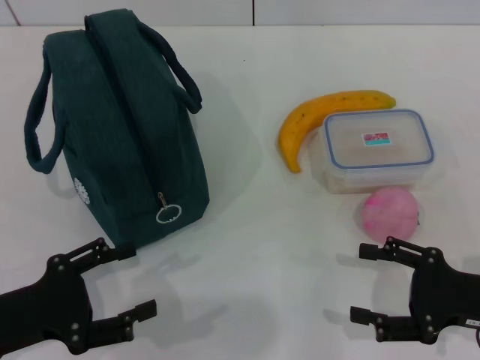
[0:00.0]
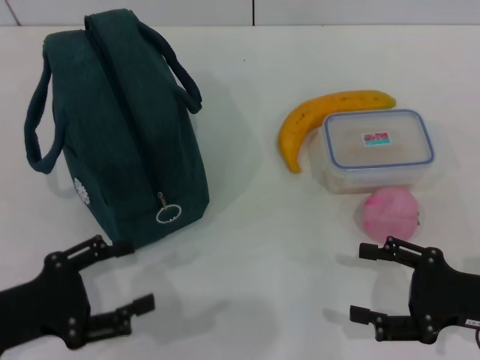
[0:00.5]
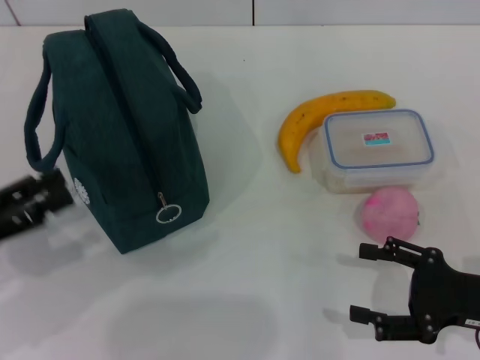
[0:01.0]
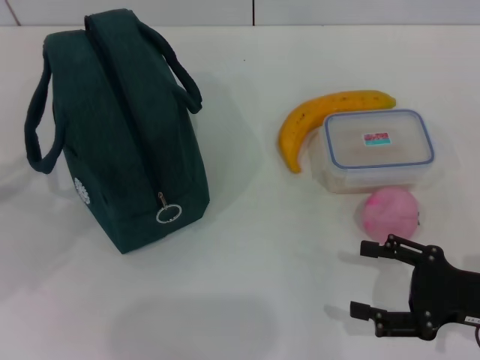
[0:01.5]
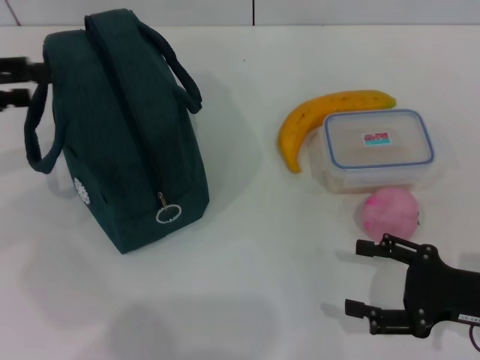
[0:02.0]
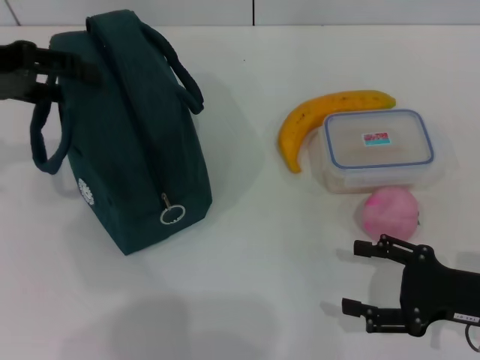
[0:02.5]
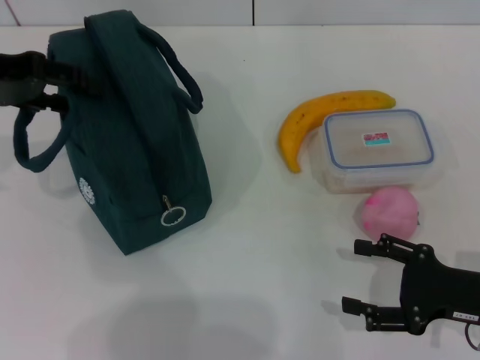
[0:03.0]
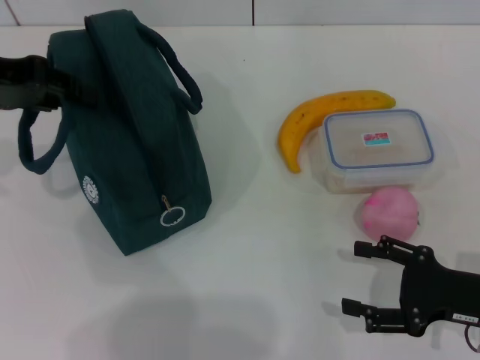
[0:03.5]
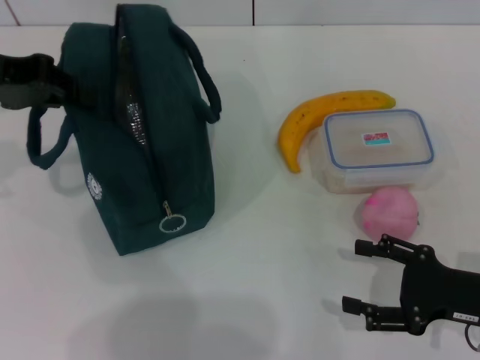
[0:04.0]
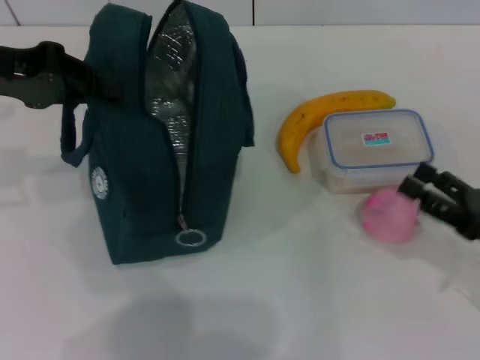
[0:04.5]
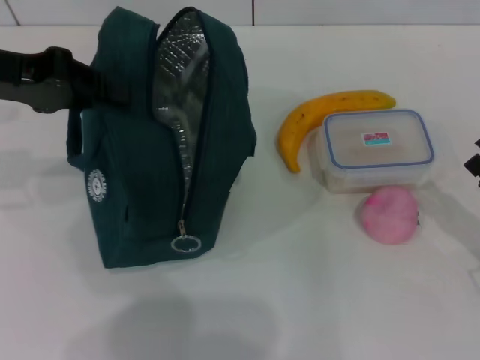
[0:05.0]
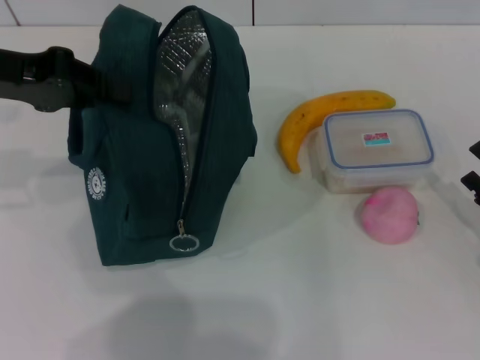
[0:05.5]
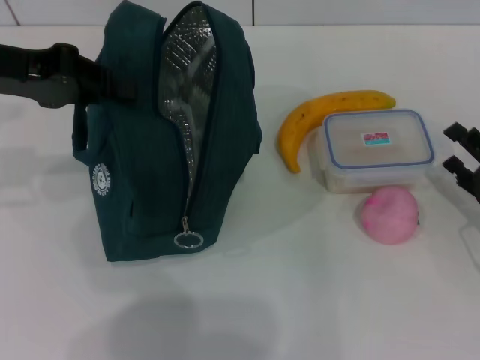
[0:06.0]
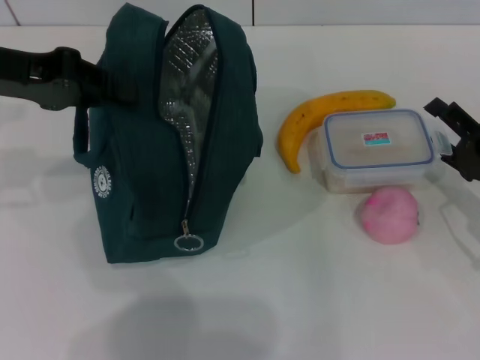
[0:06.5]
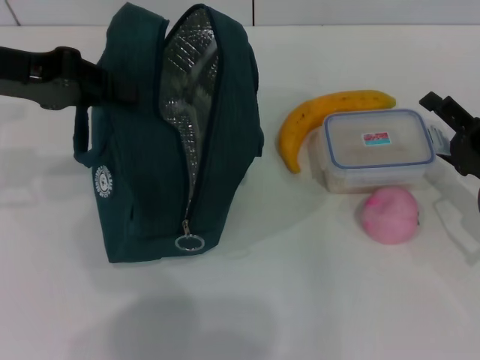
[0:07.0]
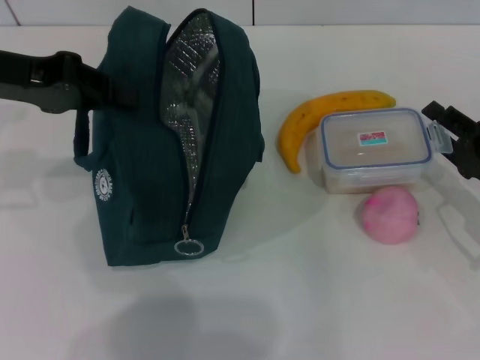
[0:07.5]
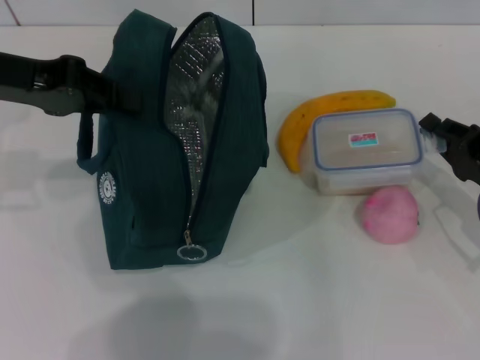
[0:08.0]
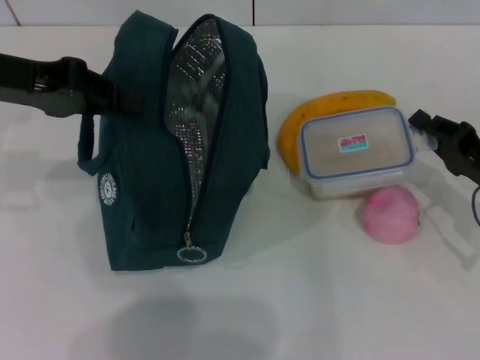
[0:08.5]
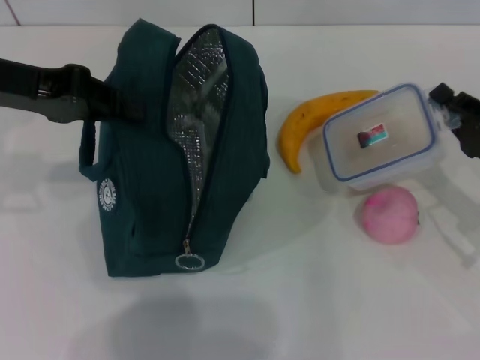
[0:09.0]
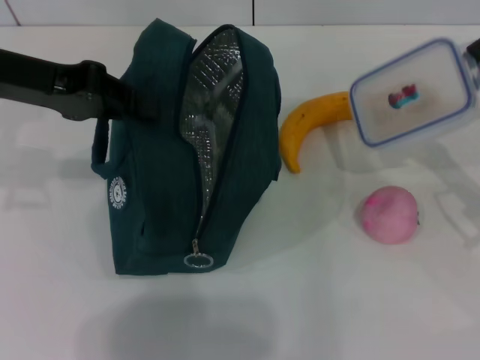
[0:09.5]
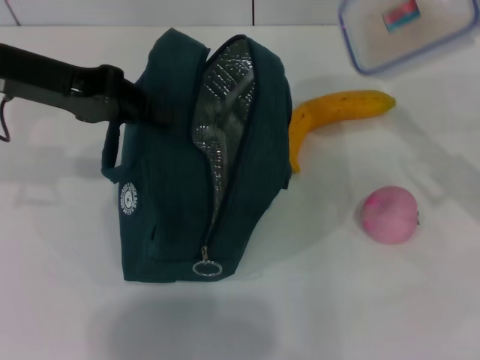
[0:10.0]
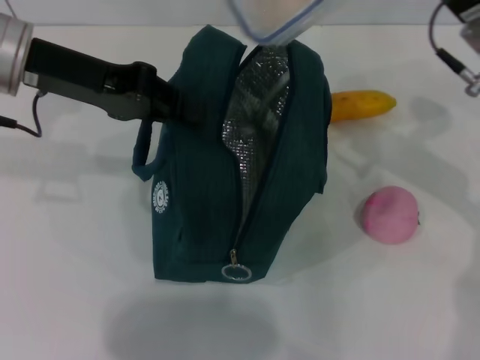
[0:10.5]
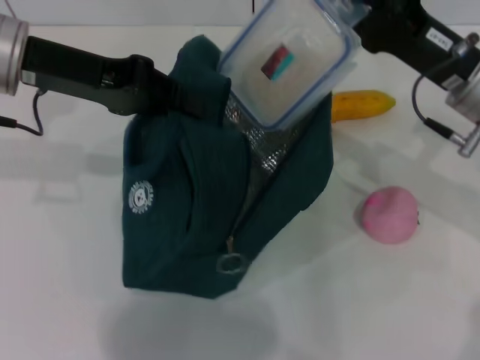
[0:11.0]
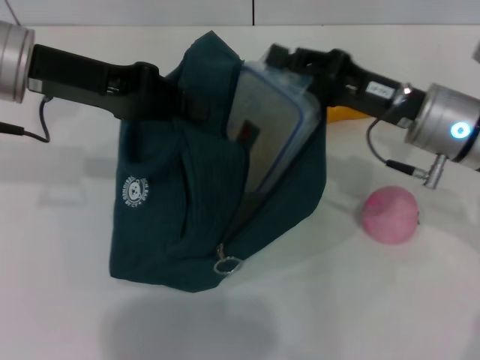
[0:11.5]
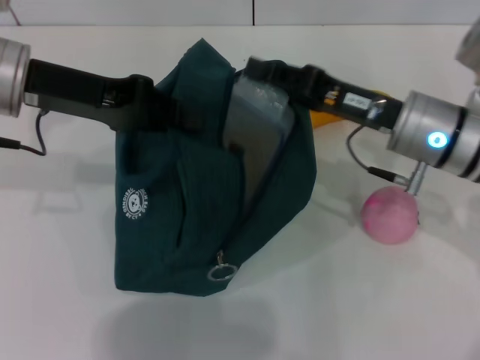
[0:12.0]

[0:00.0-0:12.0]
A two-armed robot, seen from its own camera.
Step, 0:00.0 to 0:03.5: Hold the lunch bag with your left hand.
Step, 0:04.0 to 0:08.0: Pick up the lunch box with your right hand.
Step, 0:08.5 to 0:12.0: Place the lunch box into the lunch bag with your right hand.
0:00.0 to 0:02.0: The left gripper heads forward, upward and to the left, covering about 20 cm.
0:02.0 to 0:04.0: The left gripper travels to the right by roughly 5 cm, and closes its fingers.
0:04.0 to 0:06.0: The right gripper ends up some 5 cm from where it was.
0:06.0 to 0:08.0: The right gripper closes up.
0:08.0 to 0:10.0: The right gripper goes approximately 10 cm upward.
0:10.0 to 0:12.0: The right gripper is displaced to the left by approximately 10 cm.

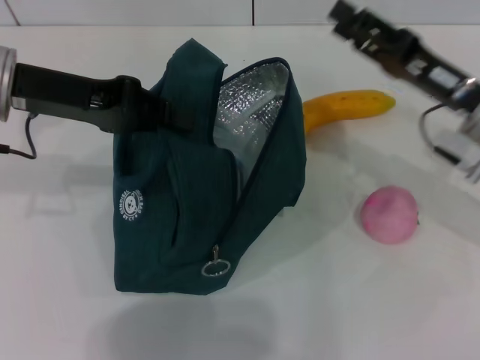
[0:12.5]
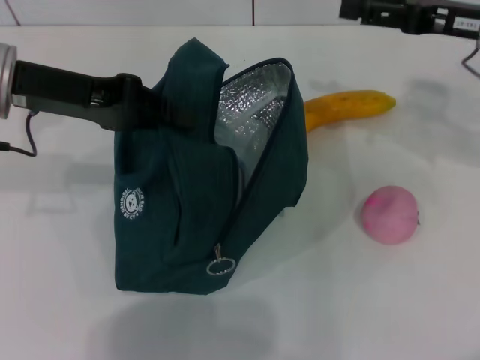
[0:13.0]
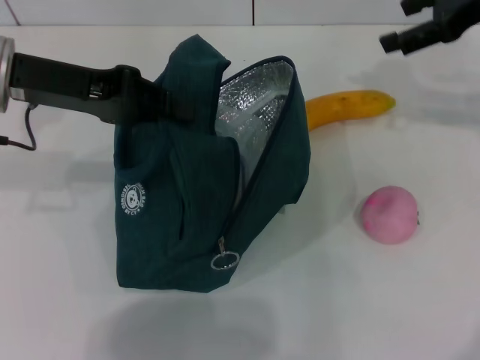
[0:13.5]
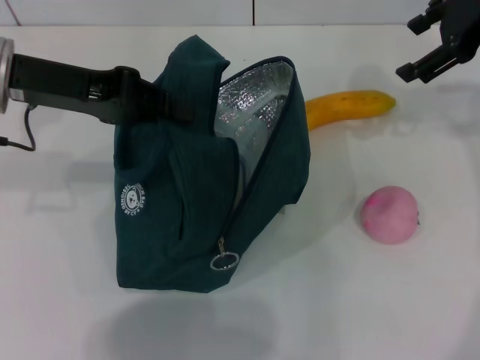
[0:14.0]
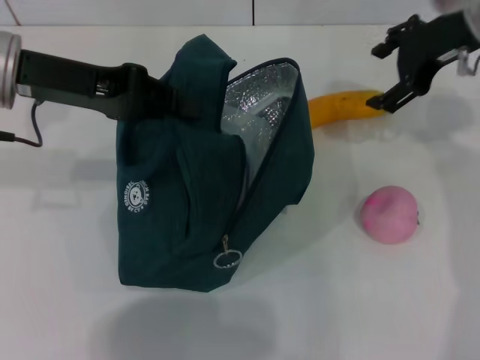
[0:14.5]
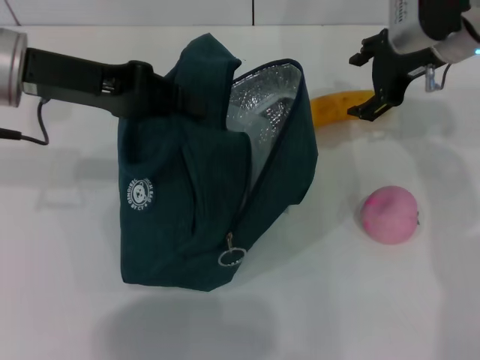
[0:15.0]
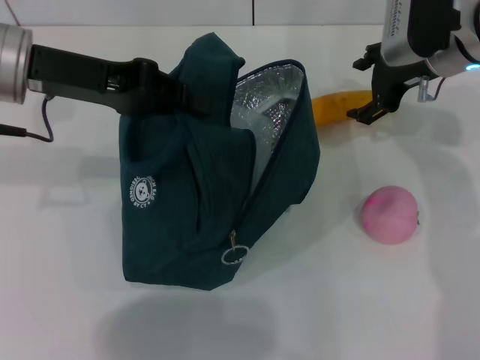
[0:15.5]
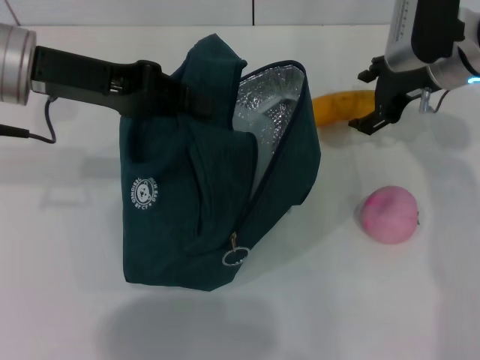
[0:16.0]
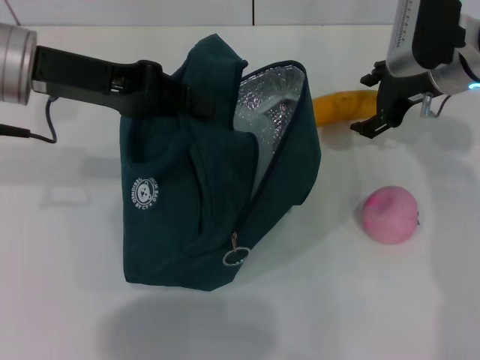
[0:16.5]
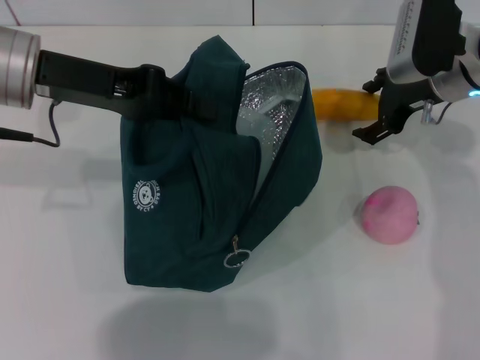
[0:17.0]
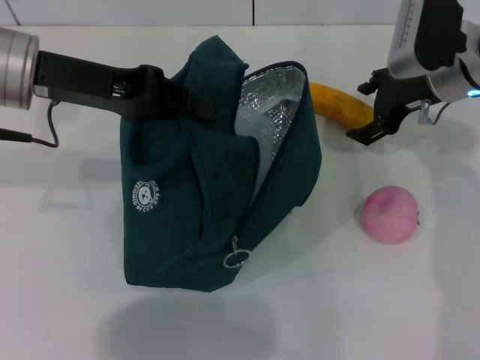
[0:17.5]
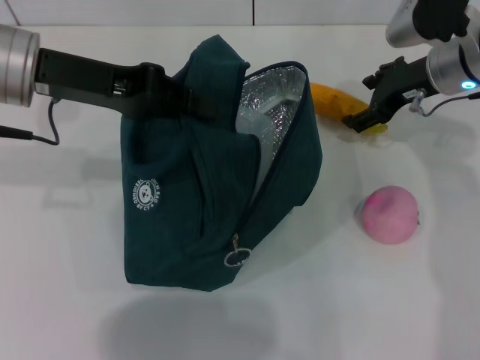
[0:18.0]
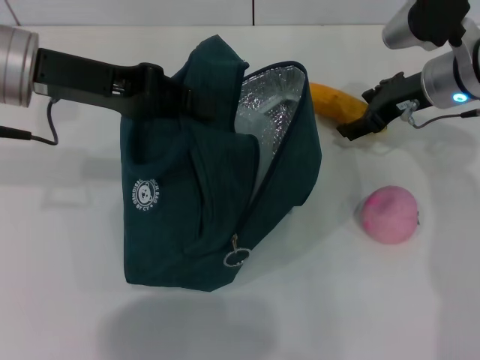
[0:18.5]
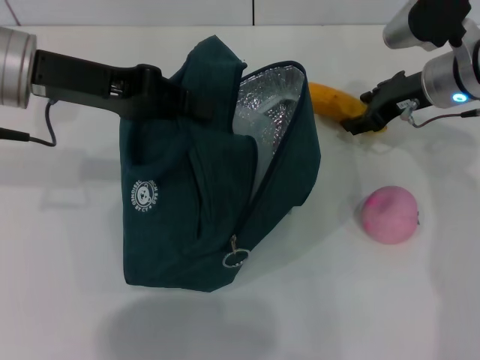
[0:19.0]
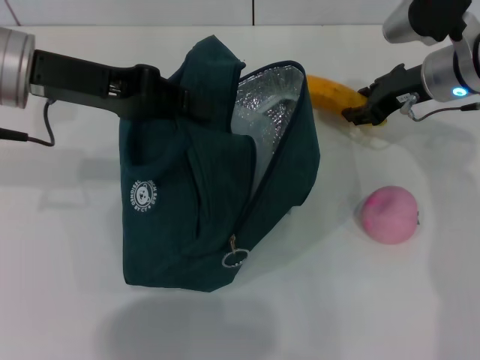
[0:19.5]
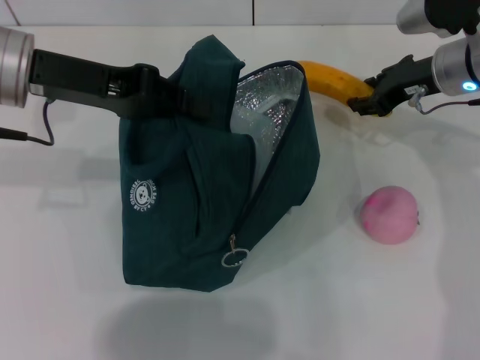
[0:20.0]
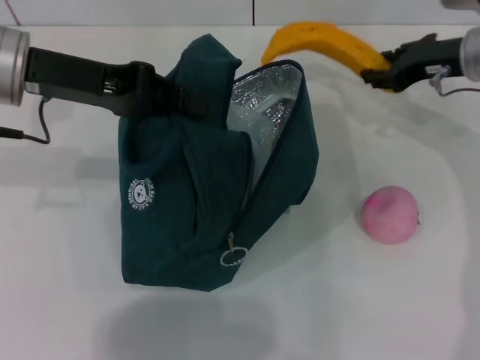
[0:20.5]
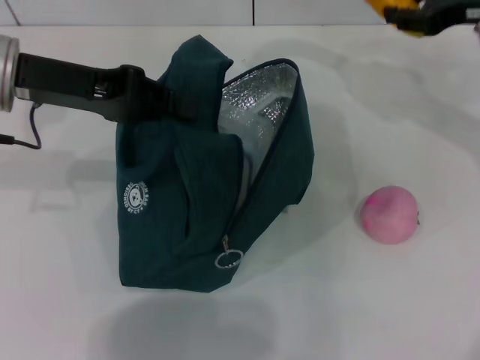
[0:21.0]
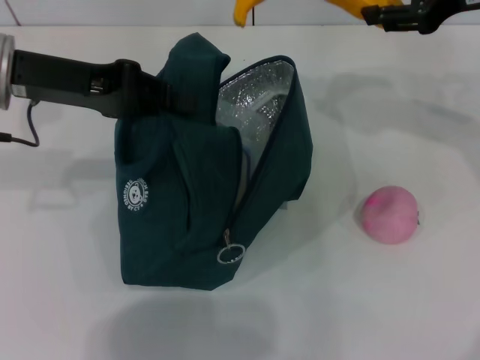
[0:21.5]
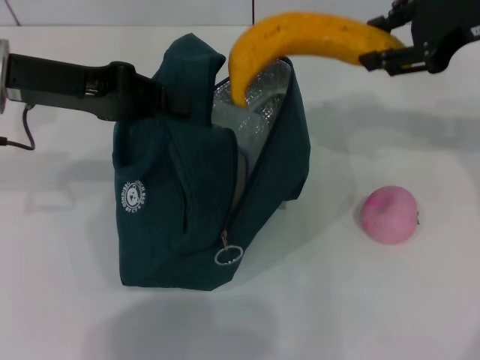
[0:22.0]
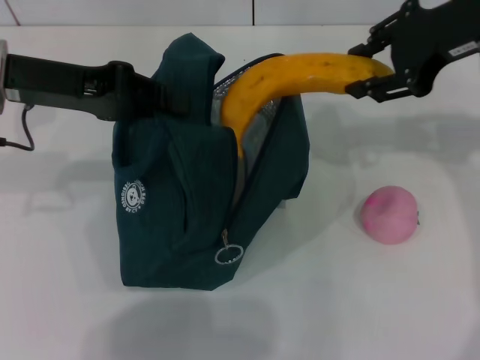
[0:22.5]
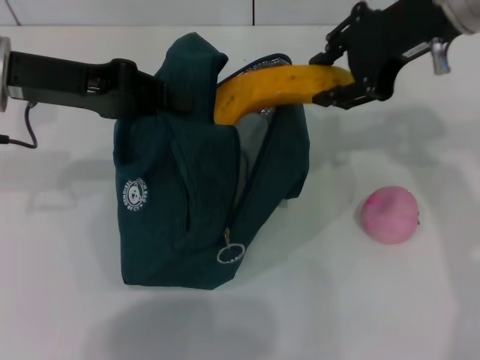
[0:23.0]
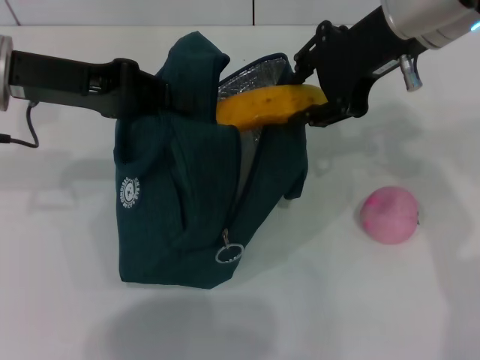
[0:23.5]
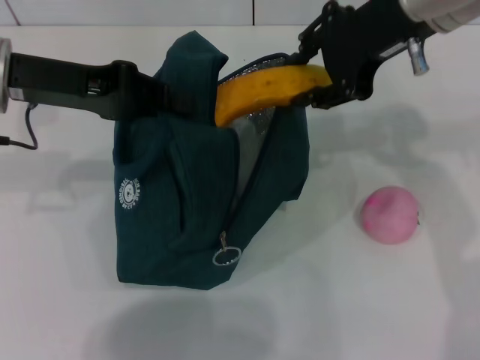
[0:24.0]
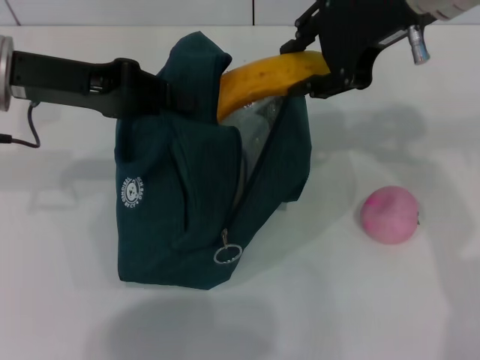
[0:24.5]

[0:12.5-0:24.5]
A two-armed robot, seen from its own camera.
Step, 0:12.5 to 0:19.0: Take the banana with your right hand.
0:12.5 to 0:14.5: The right gripper heads upward and forward, covering roughly 15 cm, and opens.
0:14.5 to 0:16.5: The right gripper moves downward, approximately 10 cm.
0:18.5 to 0:20.5: The right gripper closes up.
0:20.5 to 0:22.5: The right gripper is displaced upward and backward by some 15 cm.
0:22.5 to 0:24.5: The right gripper travels to the left by approximately 5 cm.

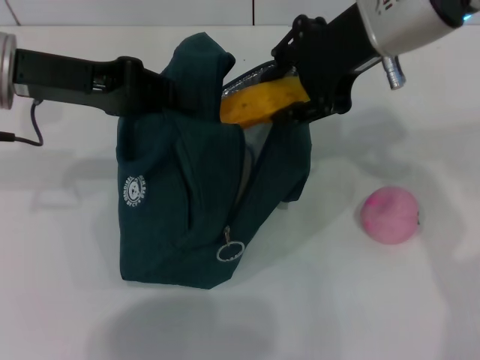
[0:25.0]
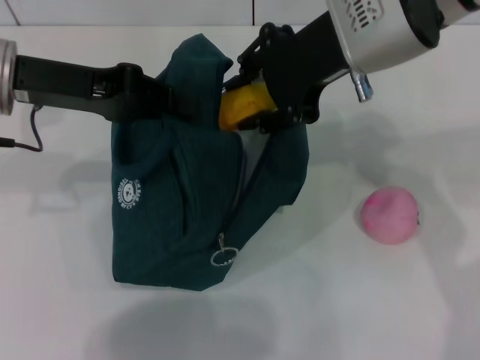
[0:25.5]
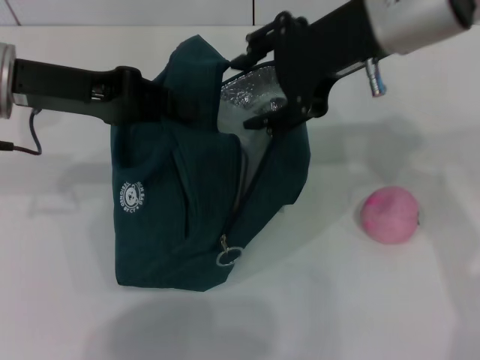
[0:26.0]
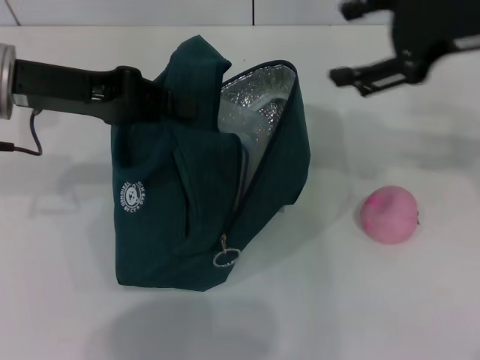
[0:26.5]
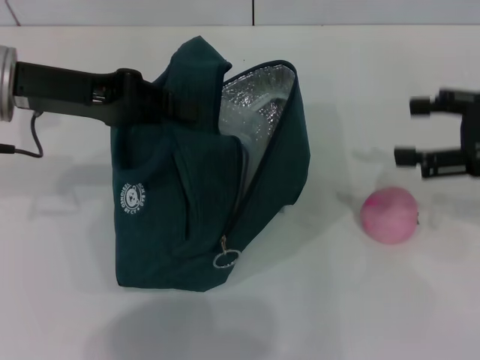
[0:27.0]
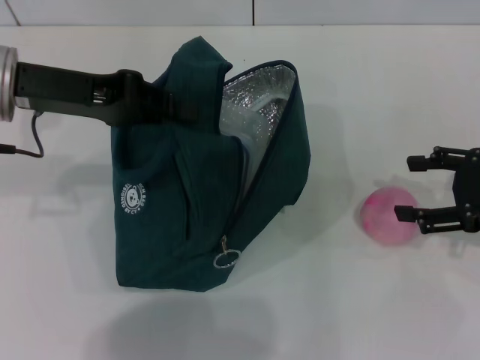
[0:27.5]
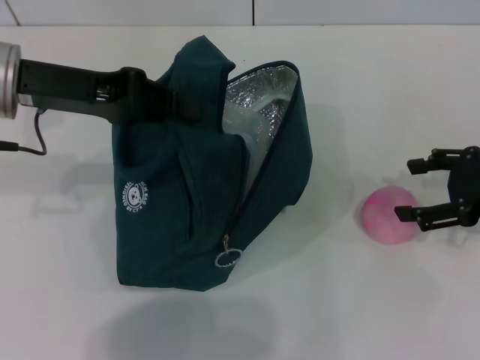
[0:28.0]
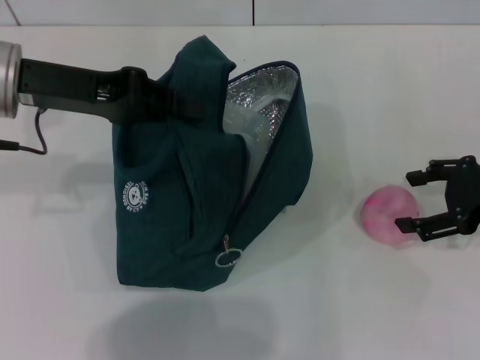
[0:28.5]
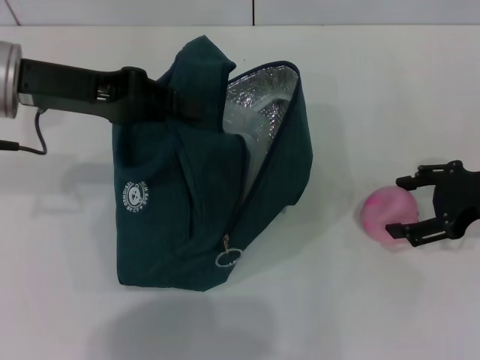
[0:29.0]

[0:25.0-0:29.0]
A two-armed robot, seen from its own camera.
0:25.0 to 0:27.0: The right gripper heads to the right and downward, covering approximately 20 cm, and opens its fingers.
0:27.0 to 0:29.0: The right gripper moves downward, about 5 cm.
